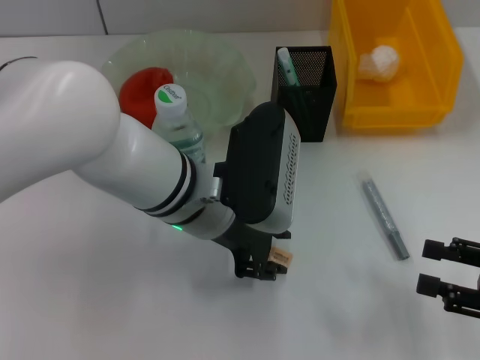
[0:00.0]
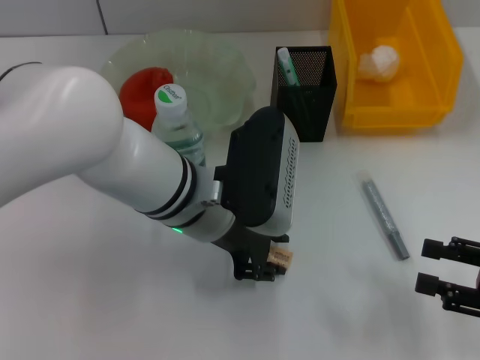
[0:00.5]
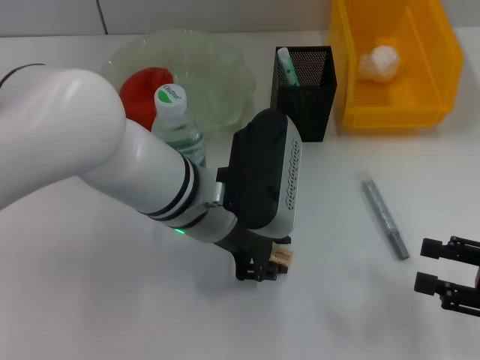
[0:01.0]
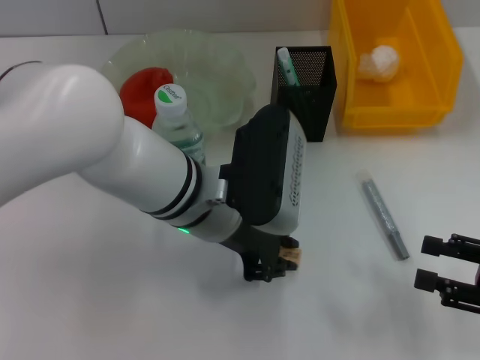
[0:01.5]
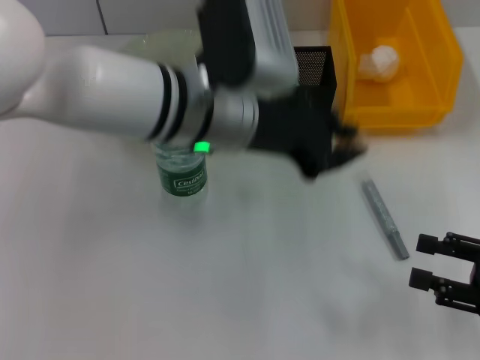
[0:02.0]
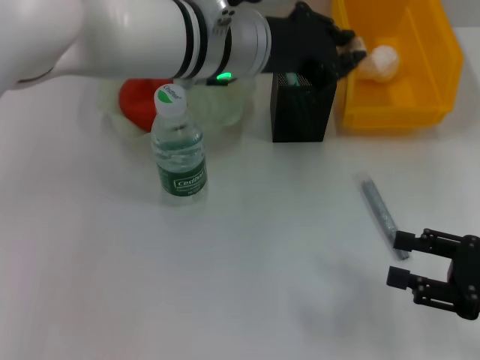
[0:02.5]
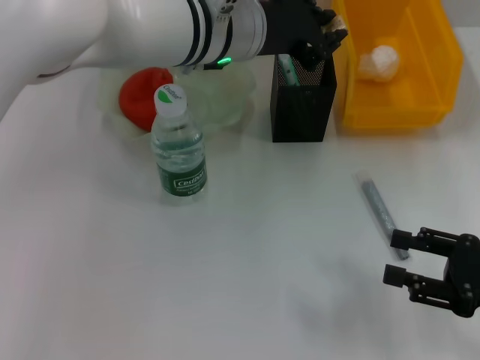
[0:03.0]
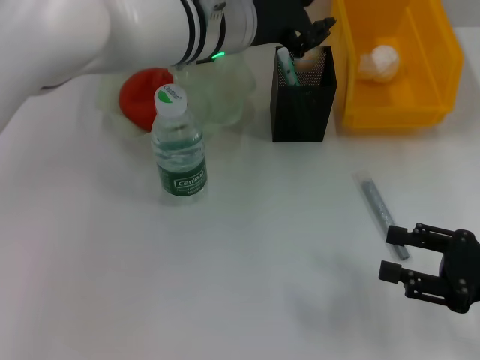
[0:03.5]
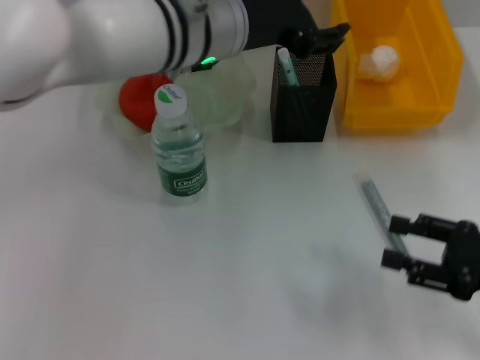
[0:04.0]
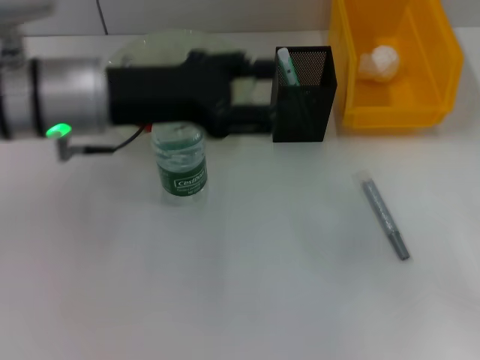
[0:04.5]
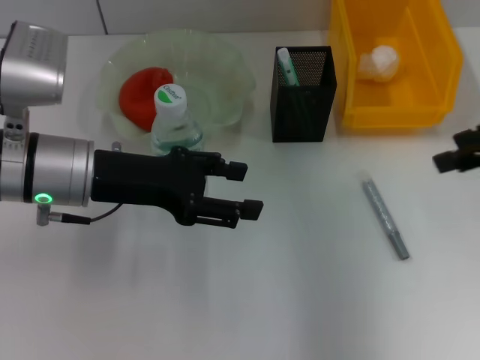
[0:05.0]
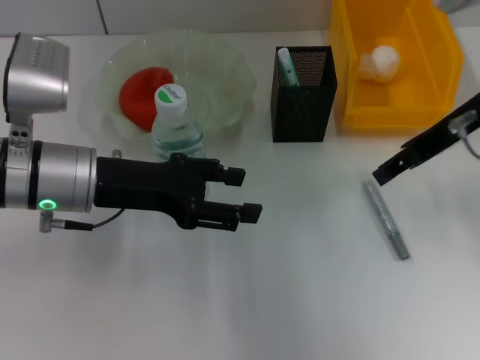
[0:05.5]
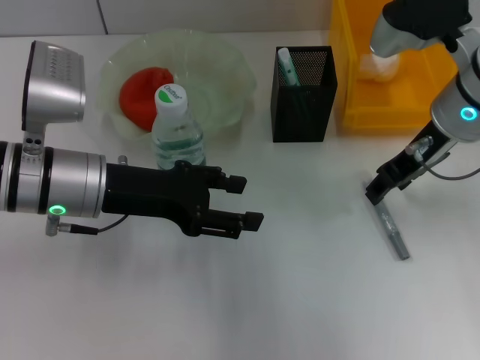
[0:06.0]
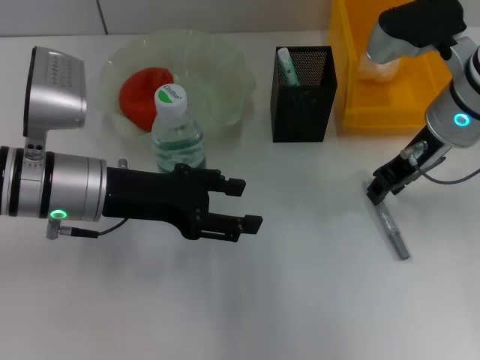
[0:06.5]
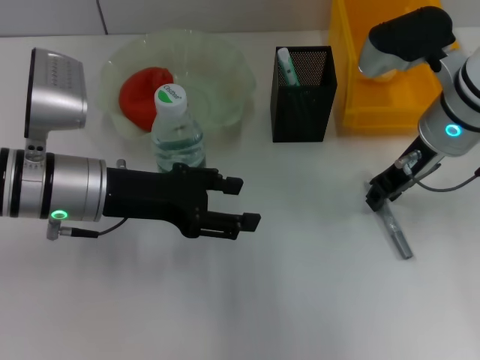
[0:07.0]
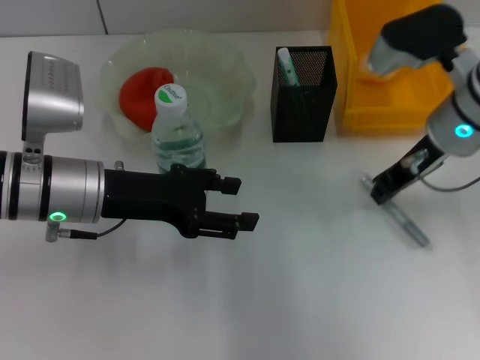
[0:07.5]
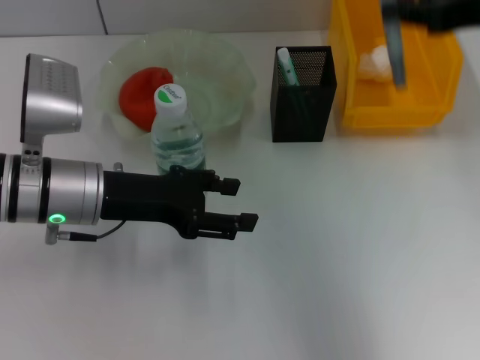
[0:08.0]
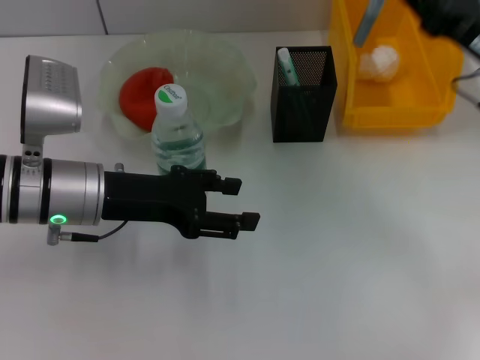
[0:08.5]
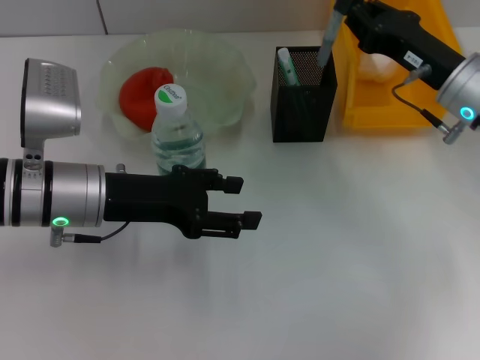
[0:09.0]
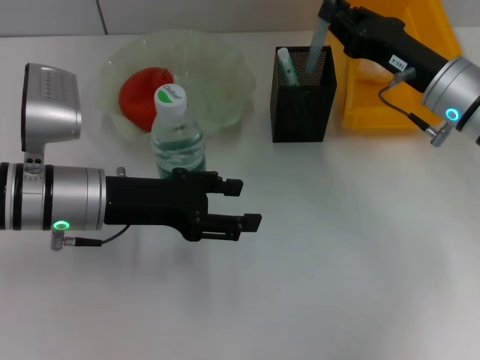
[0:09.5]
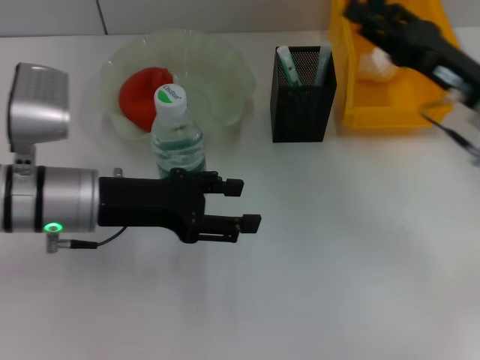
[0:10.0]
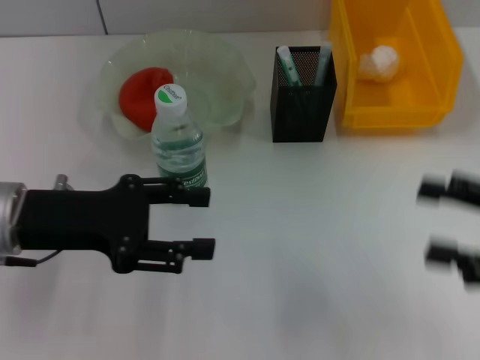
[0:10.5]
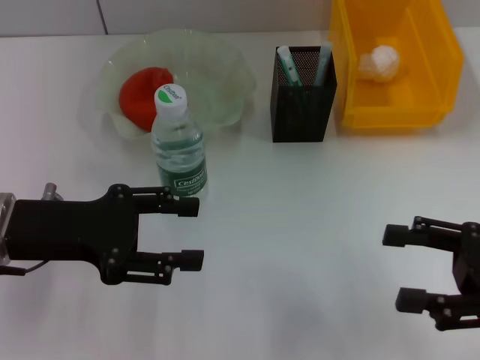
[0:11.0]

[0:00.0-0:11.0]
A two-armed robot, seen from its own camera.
Step, 1.5 to 3.5 s: Place the eraser into the pen holder with the left hand.
Step, 4.0 to 7.0 s: Grab the gray glue with the right hand.
Step, 7.5 to 9.5 s: Place the gray glue into the pen holder with the right hand.
0.0 to 2.0 s: The left gripper goes about 5 cm upward, and closes its fingers.
2.0 to 3.5 s: The left gripper shifts roughly 10 cm forward.
3.5 to 5.5 s: The left gripper heads to the left, backward and downward, covering about 20 cm, and opens; the right gripper goes approximately 25 cm forward, upward and to the left.
5.5 to 7.5 s: The right gripper moves approximately 5 cm, and closes.
7.5 to 9.0 s: The right gripper travels upward and back again, approximately 10 cm each way.
9.0 to 11.0 s: The right gripper heads backward and to the right, covering roughly 20 cm, and opens its fingers. The left gripper goes some 5 cm to the left.

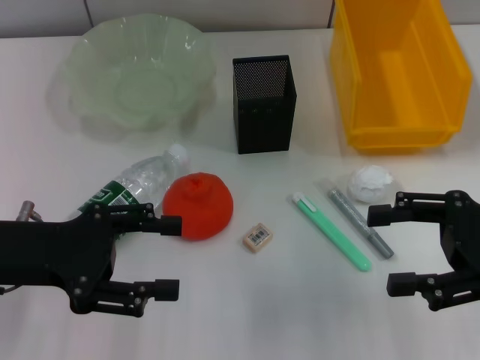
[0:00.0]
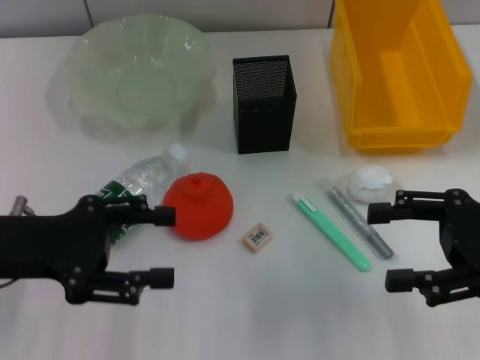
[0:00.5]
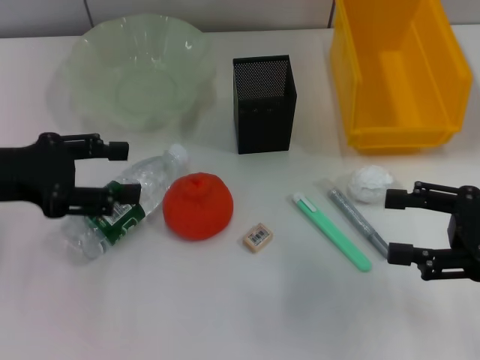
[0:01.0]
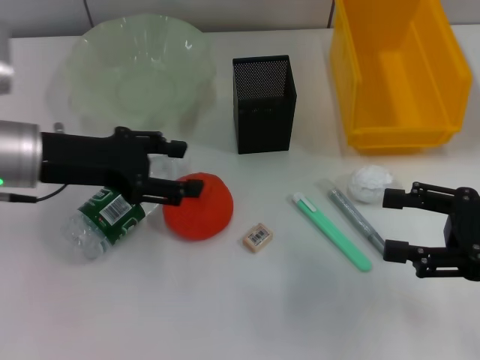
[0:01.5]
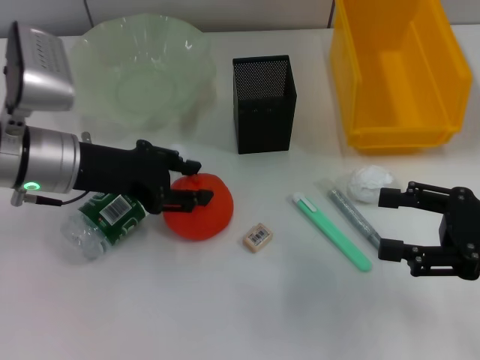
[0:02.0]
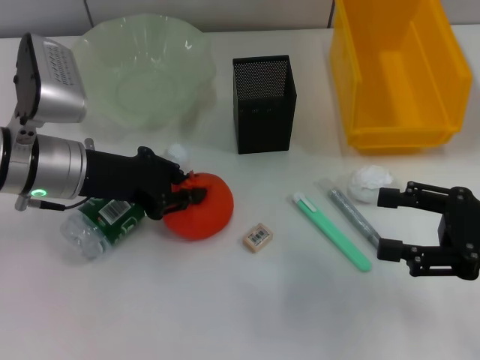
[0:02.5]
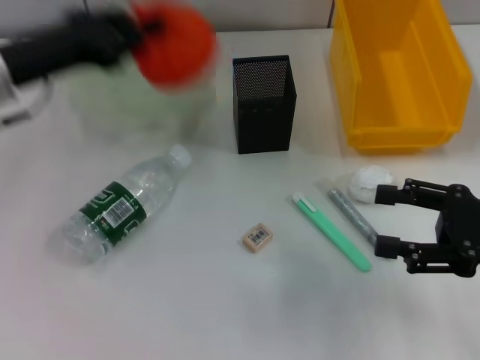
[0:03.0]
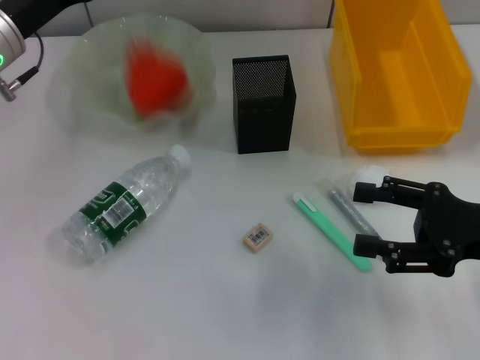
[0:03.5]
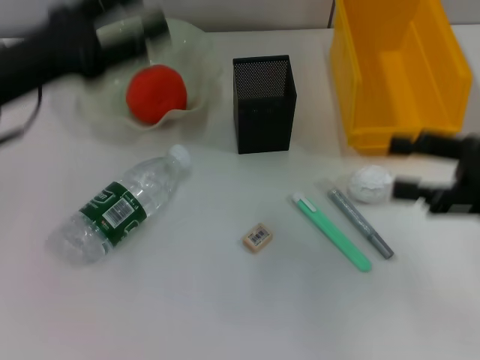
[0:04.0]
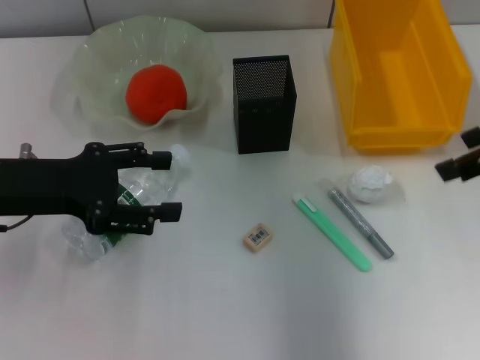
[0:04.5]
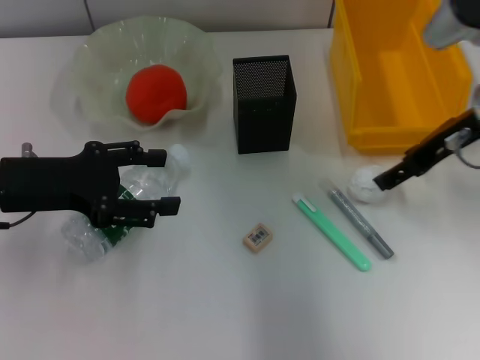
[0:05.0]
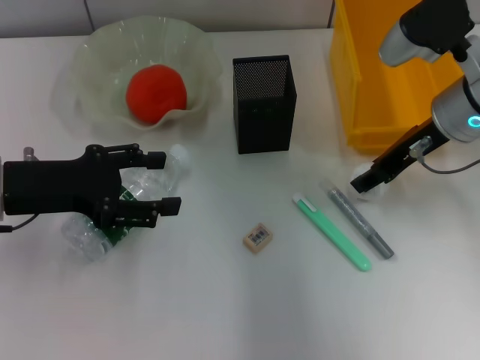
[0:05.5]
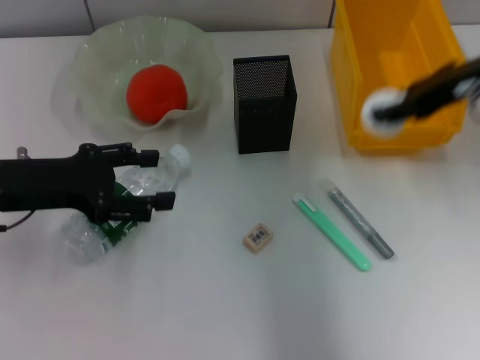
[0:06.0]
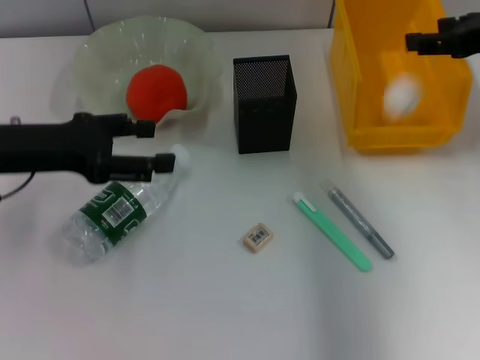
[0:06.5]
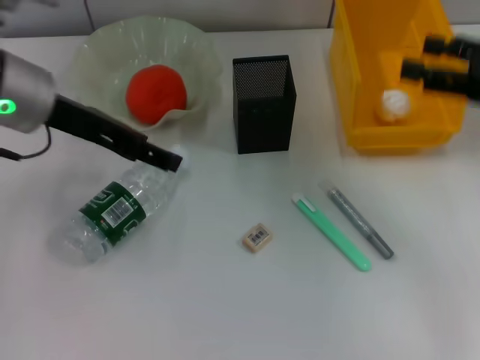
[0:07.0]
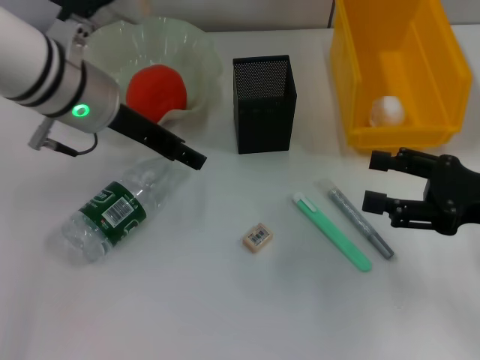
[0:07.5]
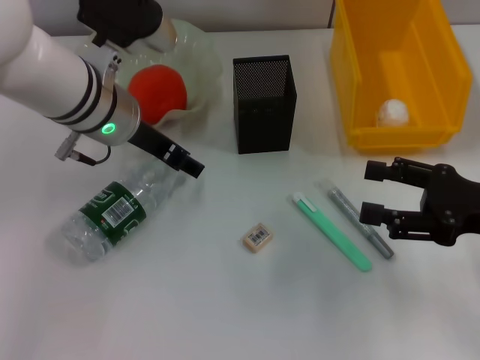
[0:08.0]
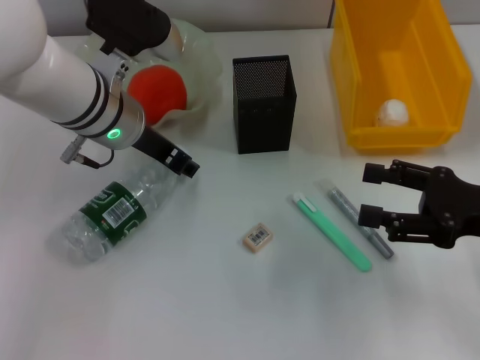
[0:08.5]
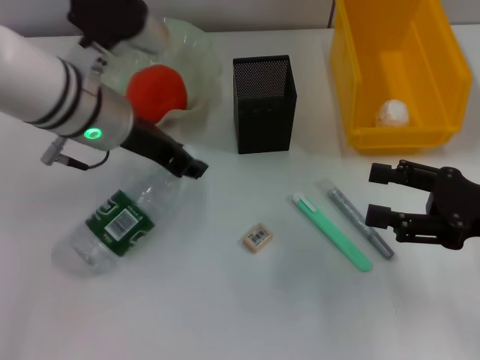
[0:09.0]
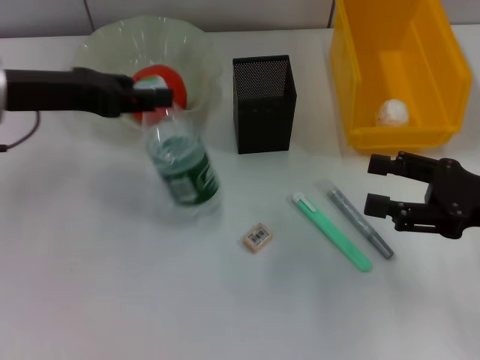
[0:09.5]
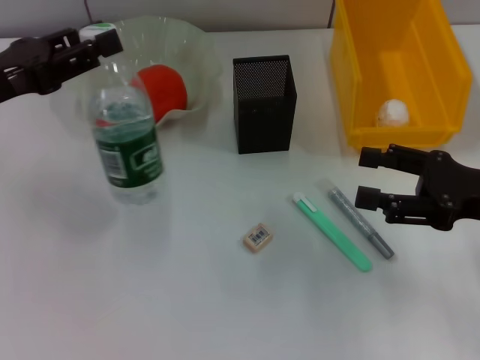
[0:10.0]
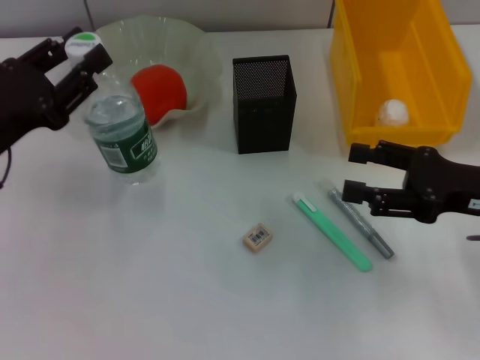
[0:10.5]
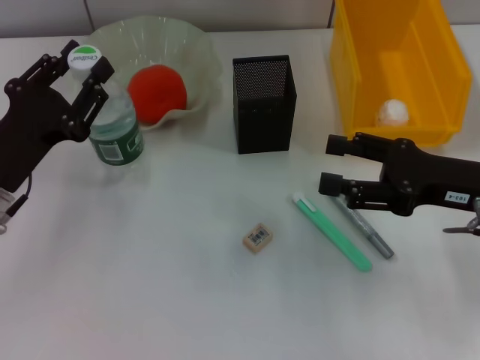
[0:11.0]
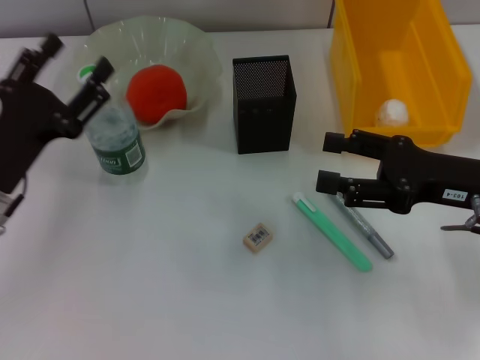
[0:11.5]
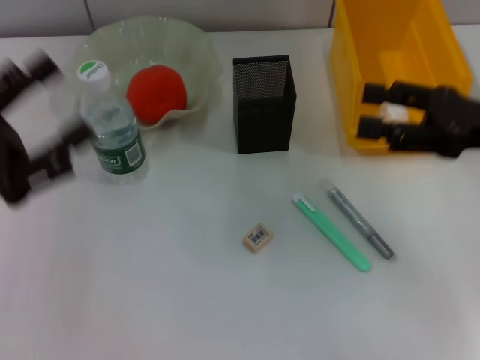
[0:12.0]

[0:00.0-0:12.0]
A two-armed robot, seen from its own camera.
Step, 0.0 to 2.0 s: Grab the orange with the left hand.
Step, 3.0 to 3.5 s: Place the orange into the fruit bowl with the left hand.
Step, 4.0 to 5.0 s: Grab the paper ball with the right hand.
Step, 5.5 to 6.5 s: Place the paper ball into the trash can with the right hand.
Step, 7.0 to 8.5 s: Grab the water bottle with the left hand.
Step, 9.0 to 11.0 s: Place the water bottle on the table with the left hand.
0.0 to 2.0 s: The left gripper is displaced forward and to the right by about 10 cm.
2.0 to 4.0 s: The left gripper reaches some 5 cm forward, then returns, and closes, then opens again. Meanwhile the right gripper shifts approximately 5 cm upward.
4.0 to 6.0 s: The right gripper heads forward, to the left and upward, covering some 15 cm, and closes up.
6.0 to 8.0 s: The right gripper heads downward, backward and to the right, covering approximately 15 cm, and opens up; the left gripper heads to the right and forward, covering approximately 15 cm.
8.0 to 10.0 s: The left gripper travels to the left and backward by approximately 15 cm, and closes up.
10.0 to 12.0 s: The left gripper moves backward, some 10 cm, and opens; the right gripper heads upward, covering about 5 cm.

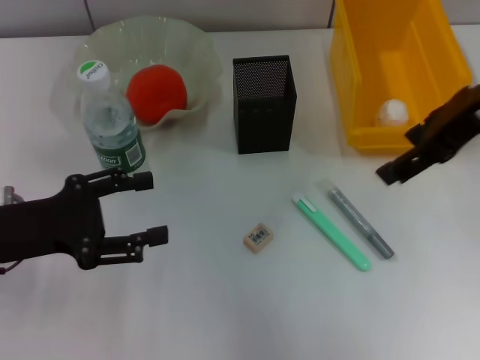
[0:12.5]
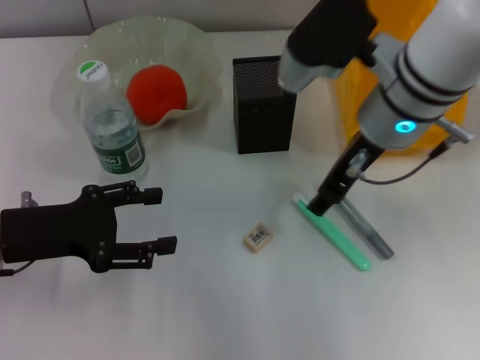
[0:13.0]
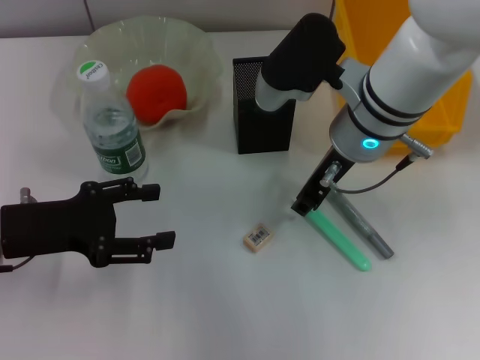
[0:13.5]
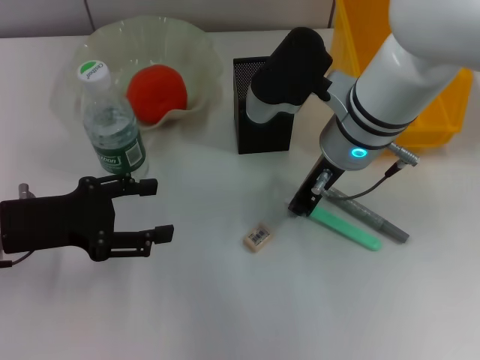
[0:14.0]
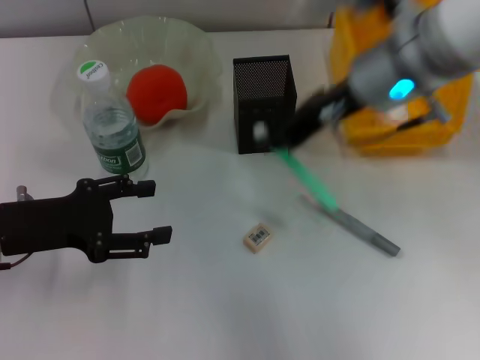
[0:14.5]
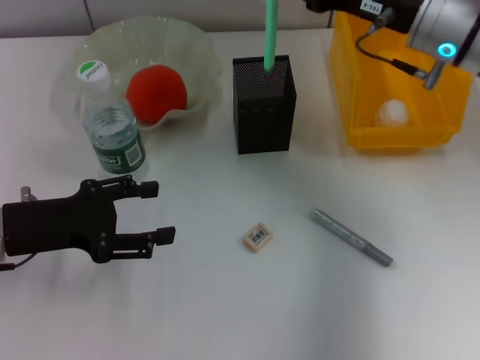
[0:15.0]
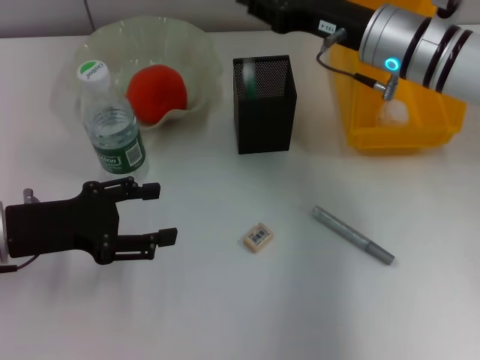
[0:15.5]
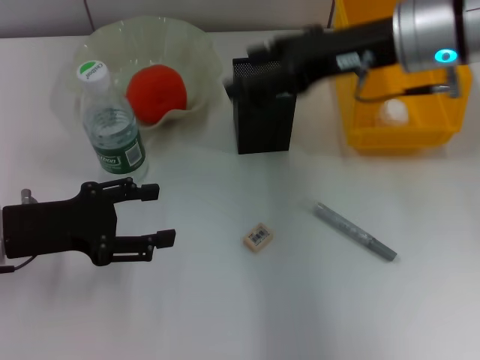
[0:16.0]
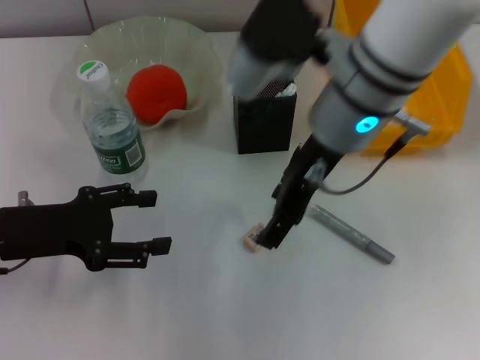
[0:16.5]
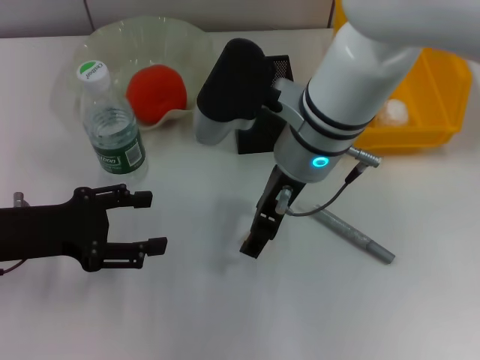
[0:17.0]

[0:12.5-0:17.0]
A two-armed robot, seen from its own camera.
Step, 12.5 to 14.0 s: Grab the blue utility knife with the right hand.
Step, 14.5 to 15.5 s: Place the blue utility knife into the pen holder with the right hand.
12.5 to 14.5 s: The right gripper goes roughly 10 cm to the left and downward, and closes.
14.5 to 17.0 s: The right gripper heads to the left and downward, covering roughly 10 cm, and opens.
